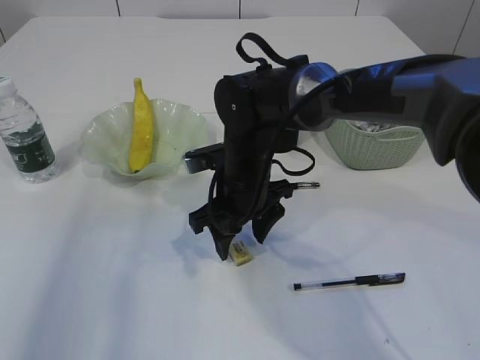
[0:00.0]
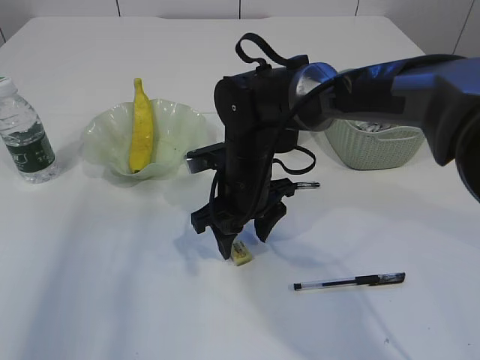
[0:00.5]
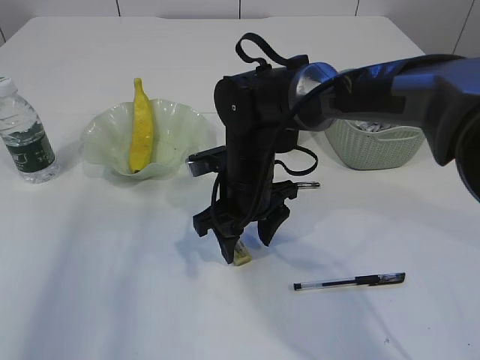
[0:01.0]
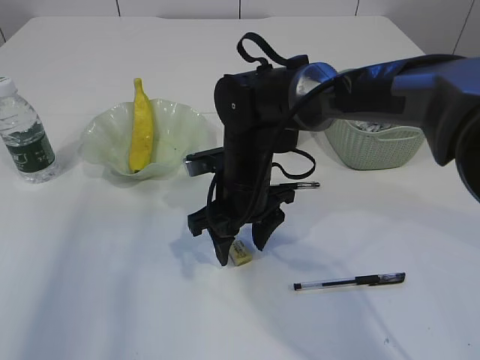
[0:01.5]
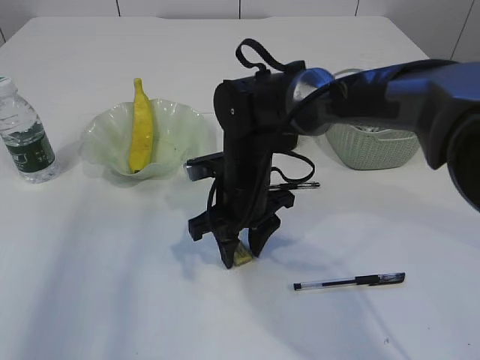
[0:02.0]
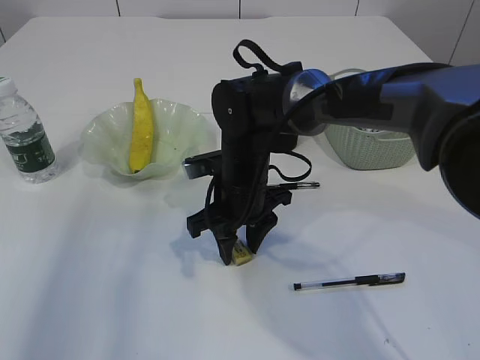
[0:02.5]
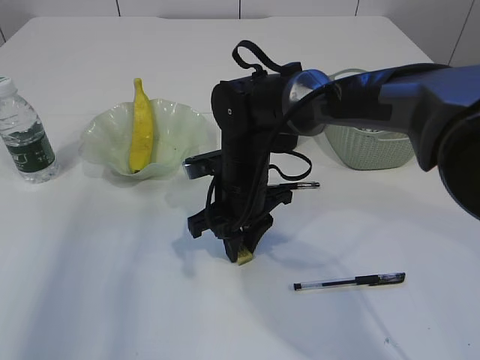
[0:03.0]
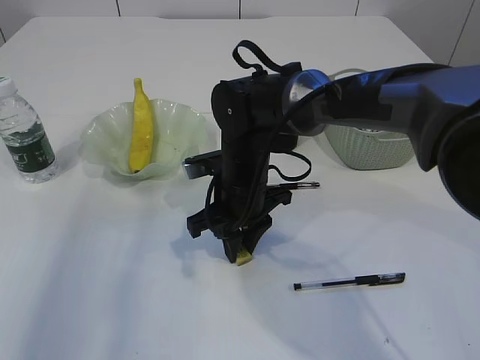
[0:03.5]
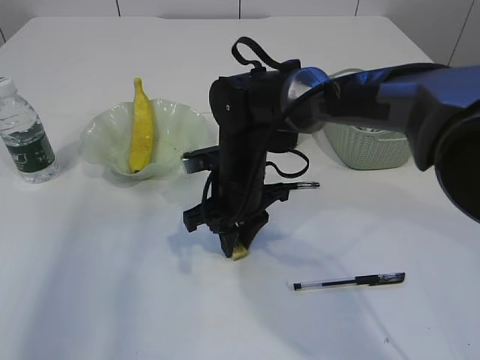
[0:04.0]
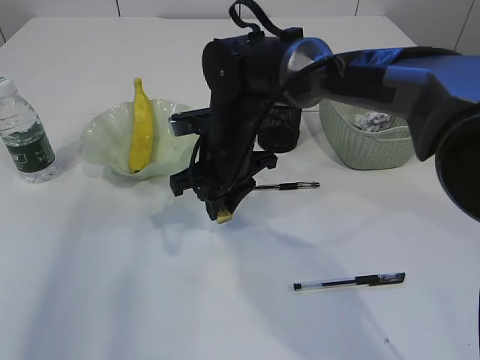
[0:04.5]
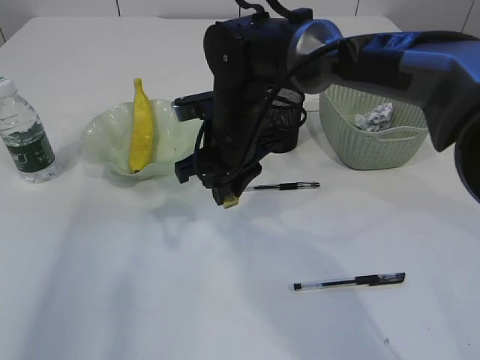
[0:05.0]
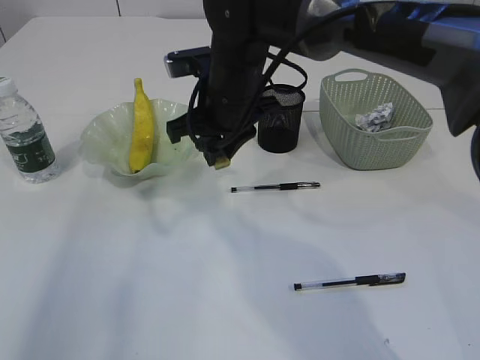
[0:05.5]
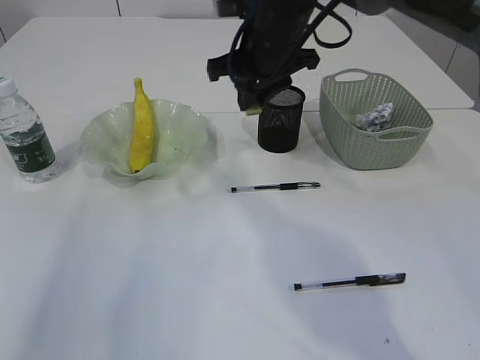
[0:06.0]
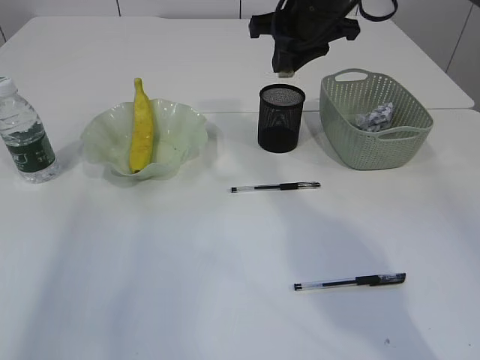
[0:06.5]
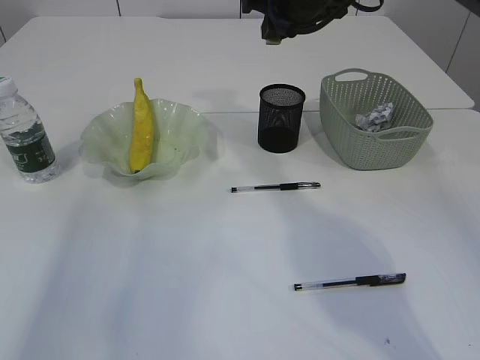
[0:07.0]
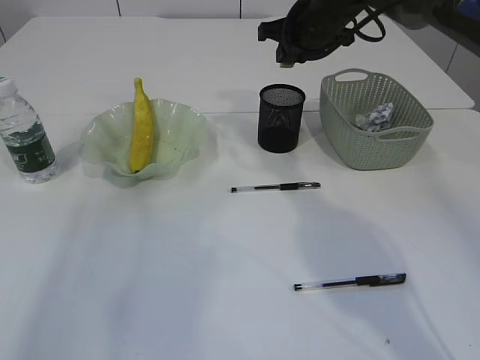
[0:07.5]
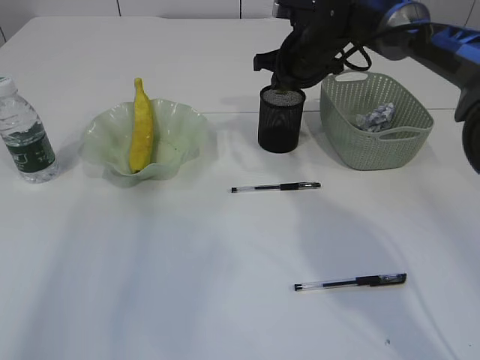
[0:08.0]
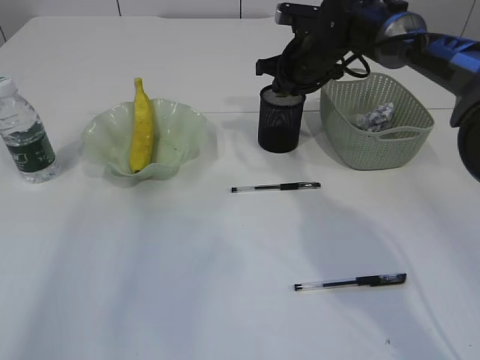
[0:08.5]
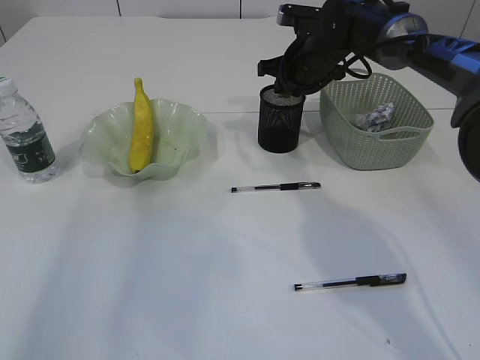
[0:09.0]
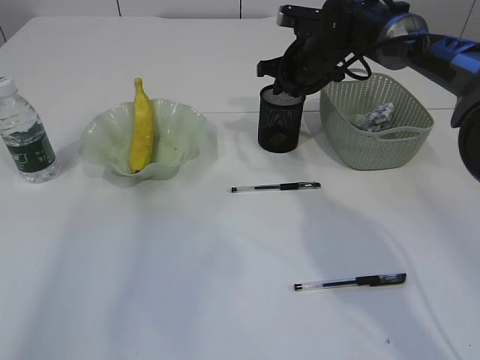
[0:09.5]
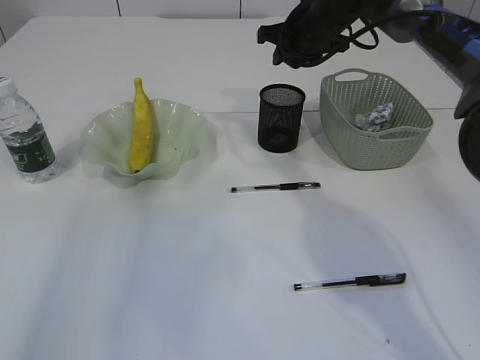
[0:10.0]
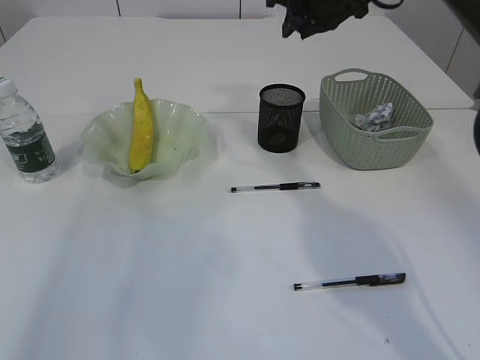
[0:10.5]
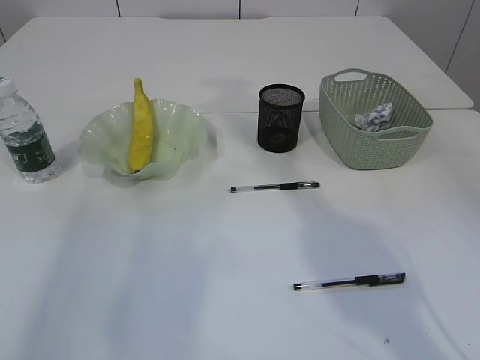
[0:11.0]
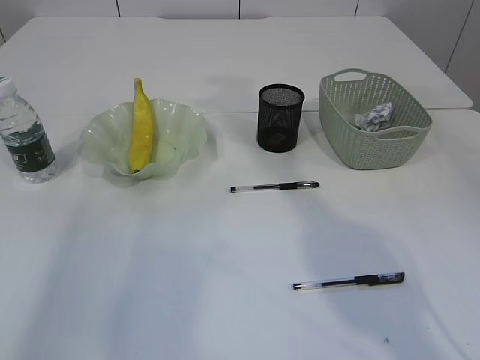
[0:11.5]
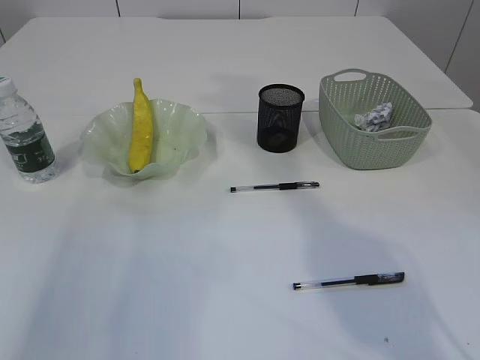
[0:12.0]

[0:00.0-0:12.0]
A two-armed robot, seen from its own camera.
Step, 0:00.0 to 0:04.5: Pick up the eraser.
Step, 0:05.0 to 0:09.5: Place the eraser into the pen holder.
0:00.0 to 0:04.0: Both grippers stay about where they are.
0:04.0 to 0:06.0: The right gripper shifts about 15 cm upward and forward.
0:06.0 to 0:08.0: The right gripper is displaced forward, to the right and downward by approximately 15 cm.
0:08.0 to 0:10.0: The grippers move only a little.
0:10.0 to 0:12.0: The right gripper shifts approximately 25 cm upward and backward.

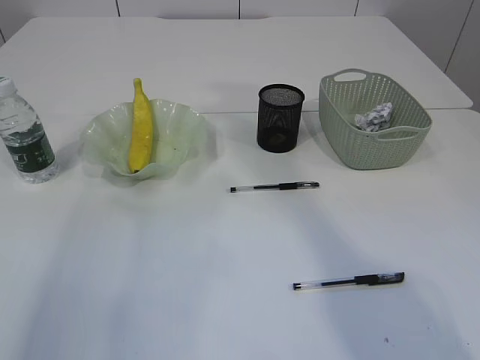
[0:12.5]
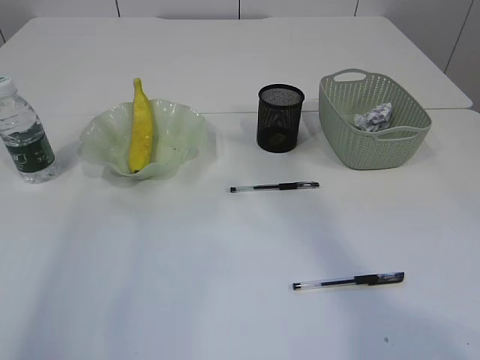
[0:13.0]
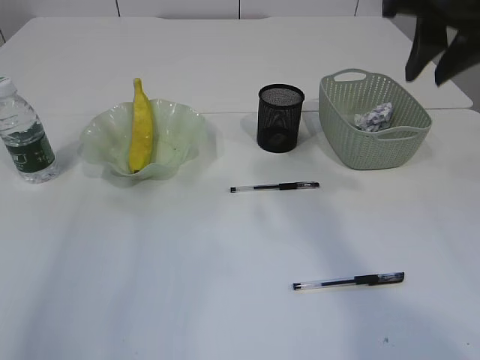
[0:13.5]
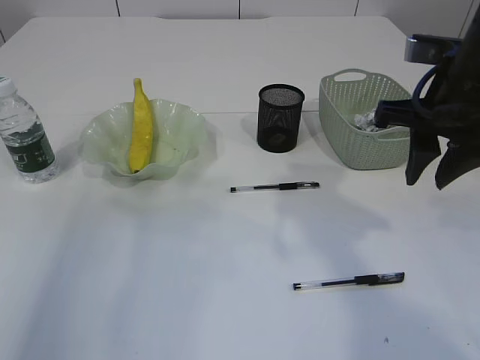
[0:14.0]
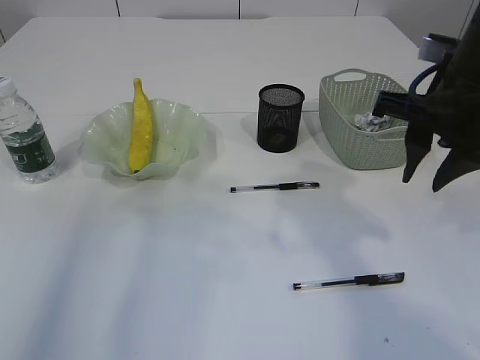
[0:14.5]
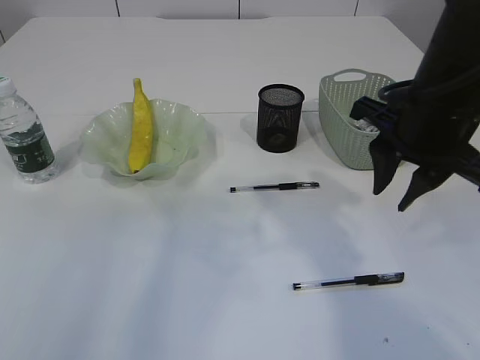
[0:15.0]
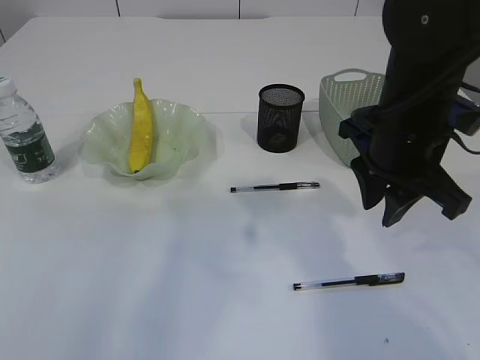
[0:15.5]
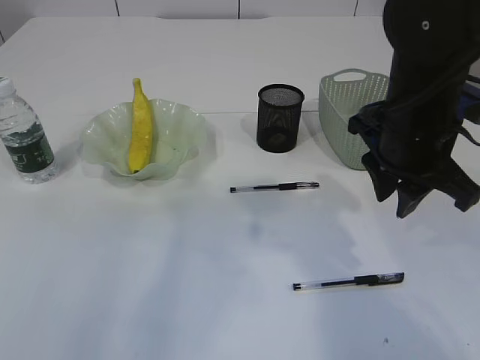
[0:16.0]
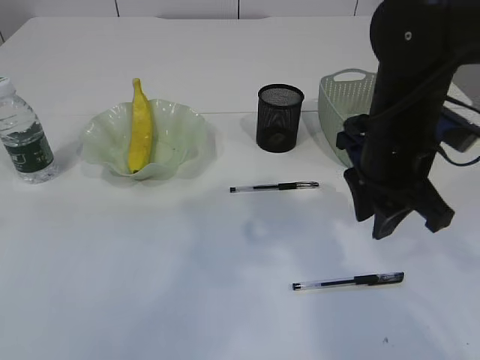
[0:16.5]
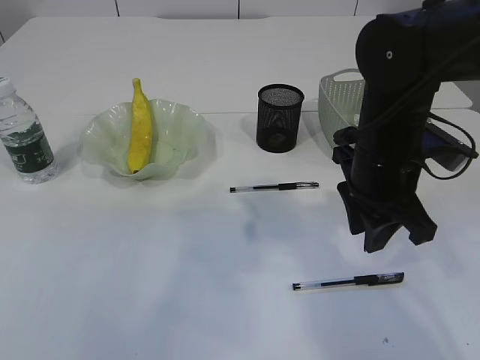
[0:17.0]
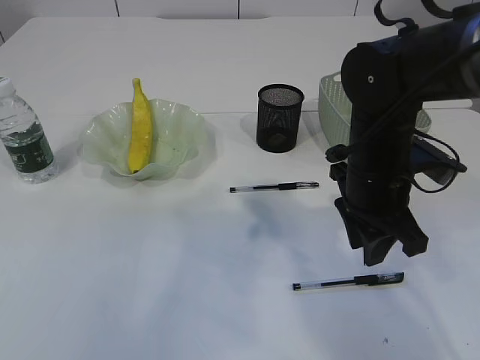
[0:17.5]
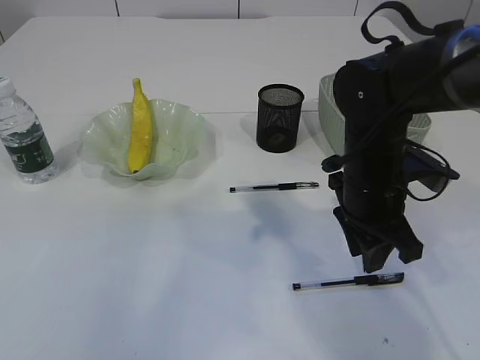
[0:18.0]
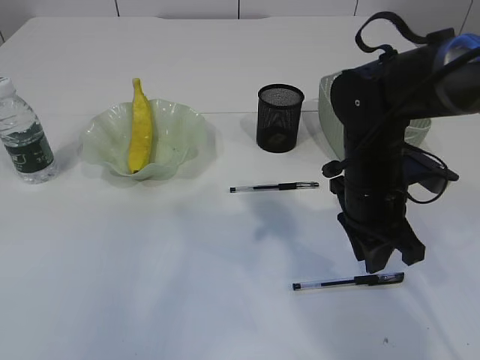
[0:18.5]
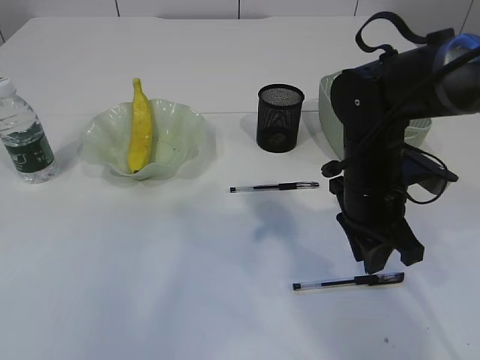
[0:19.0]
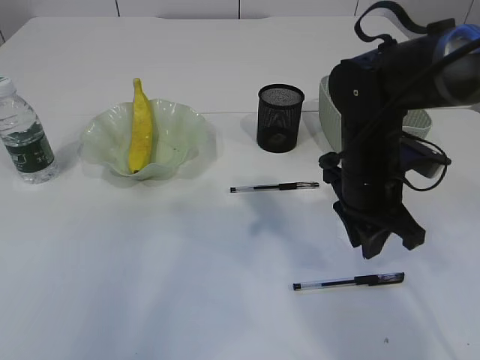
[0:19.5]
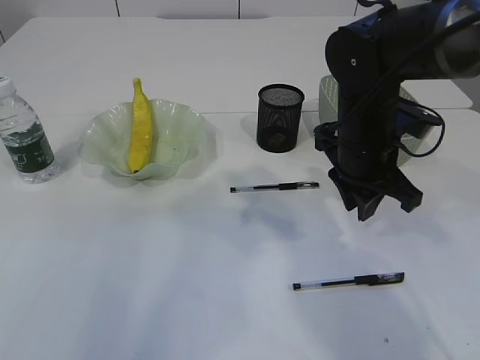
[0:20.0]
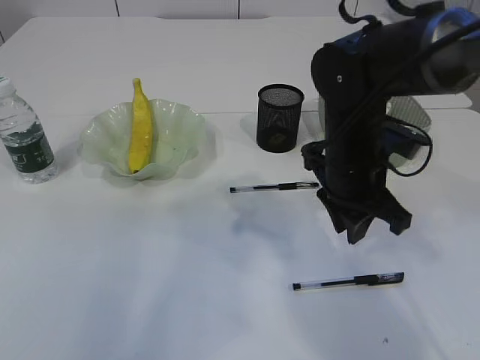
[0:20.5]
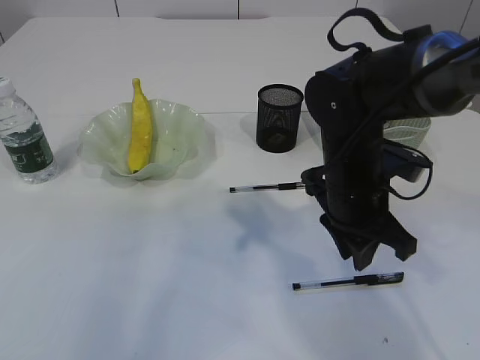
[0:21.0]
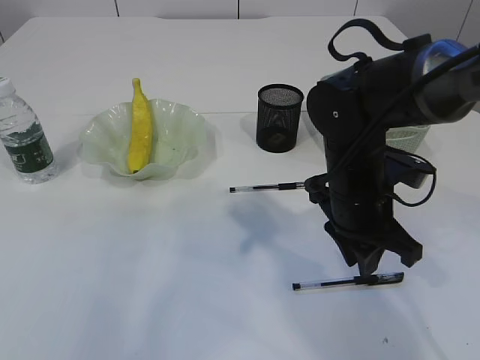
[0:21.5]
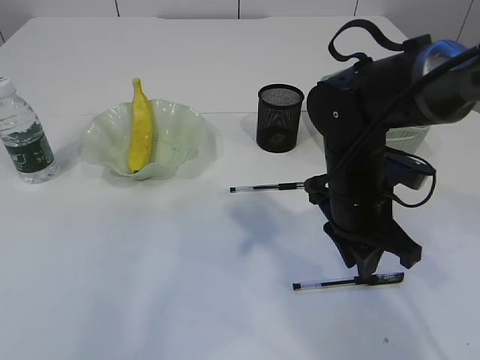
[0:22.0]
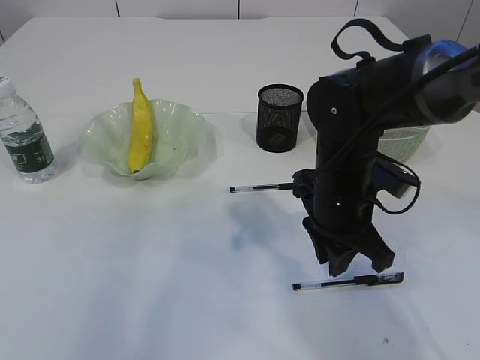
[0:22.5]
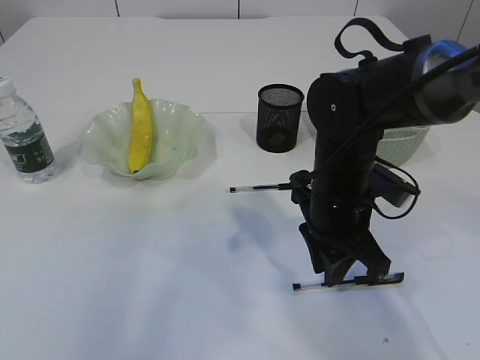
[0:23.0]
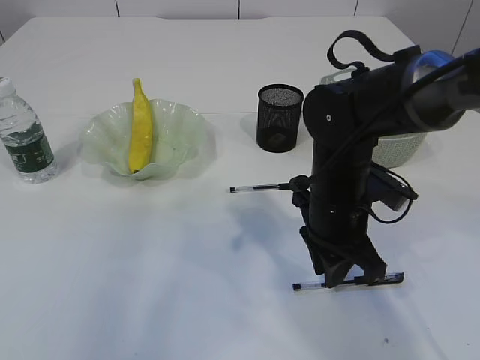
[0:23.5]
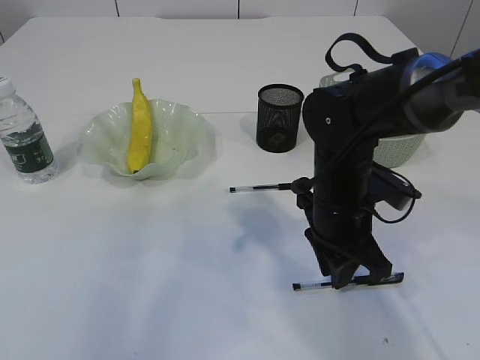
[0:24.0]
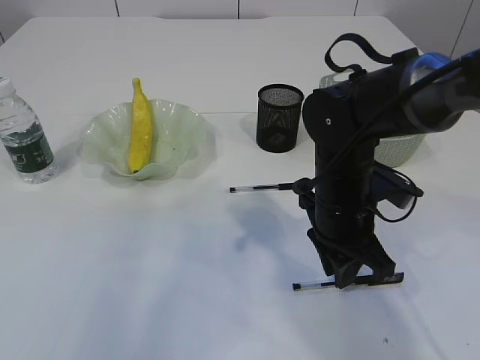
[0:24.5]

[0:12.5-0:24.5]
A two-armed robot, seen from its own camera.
0:12.5 to 0:14.5: The right gripper heads downward, covering approximately 25 cm.
0:14.5 to 0:16.5: The right gripper travels downward and to the left by approximately 10 cm. Meanwhile the left gripper moves to the right, about 5 cm.
0:16.5 to 0:18.5: The right gripper is displaced downward by approximately 5 cm.
0:18.5 to 0:24.5: The grippers move only a little.

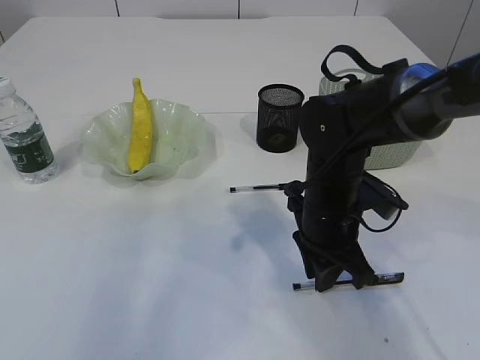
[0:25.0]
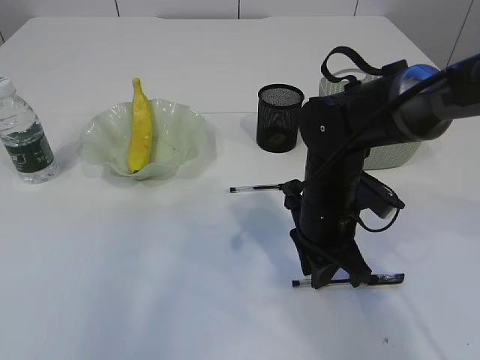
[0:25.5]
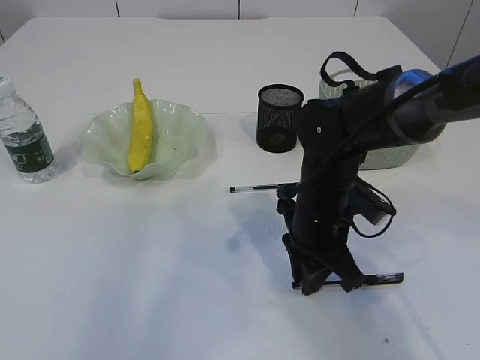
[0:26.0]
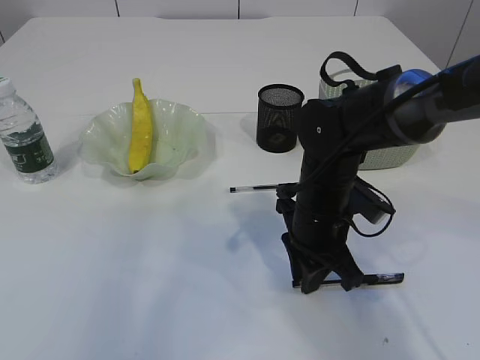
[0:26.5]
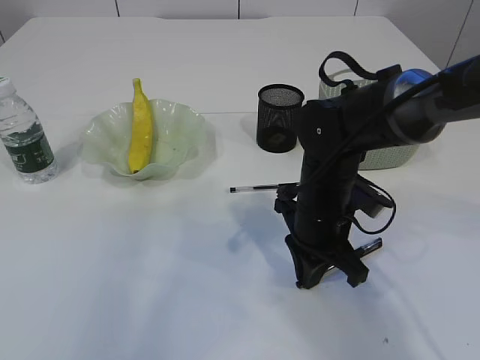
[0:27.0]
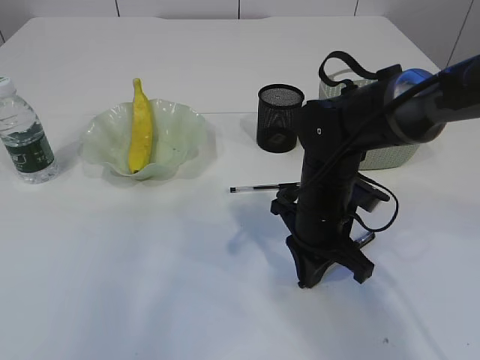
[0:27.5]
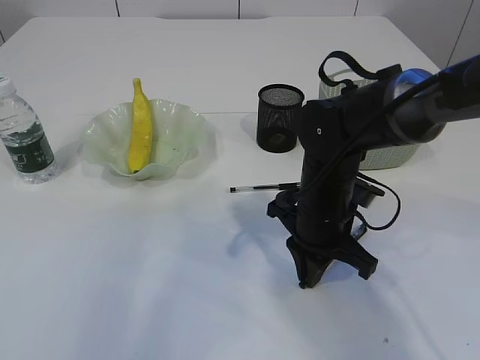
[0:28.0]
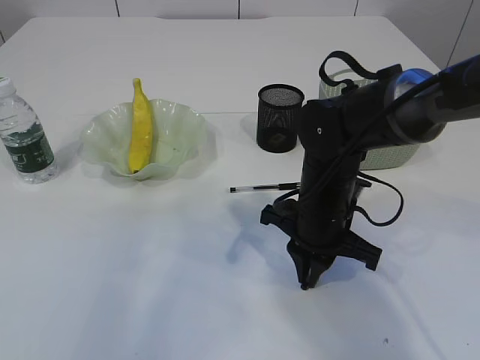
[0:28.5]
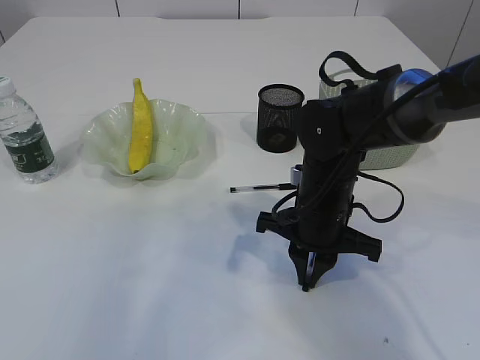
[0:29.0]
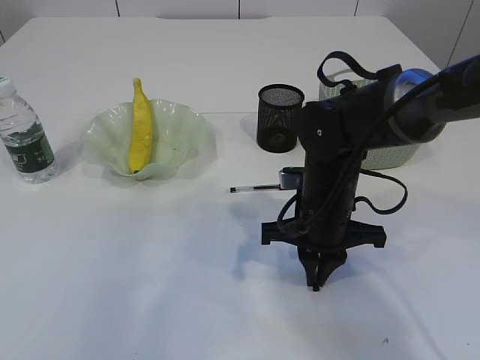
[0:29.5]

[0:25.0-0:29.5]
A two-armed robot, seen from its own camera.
0:25.0 to 0:27.0: The grippers make only small movements.
